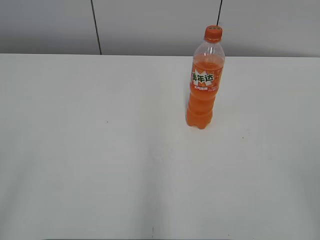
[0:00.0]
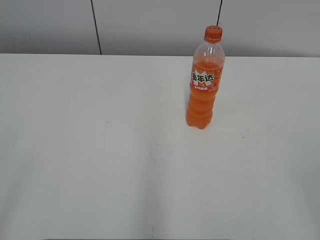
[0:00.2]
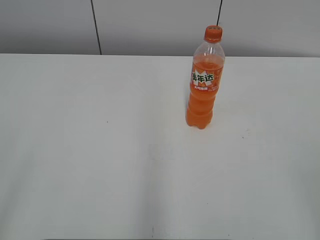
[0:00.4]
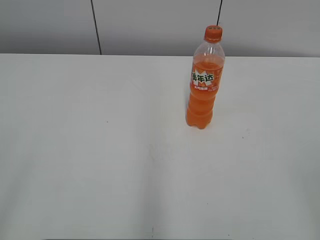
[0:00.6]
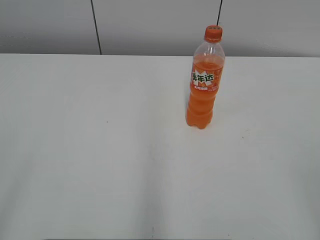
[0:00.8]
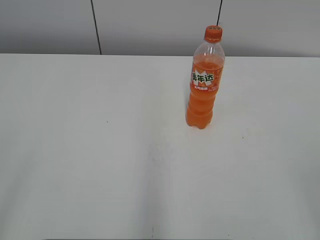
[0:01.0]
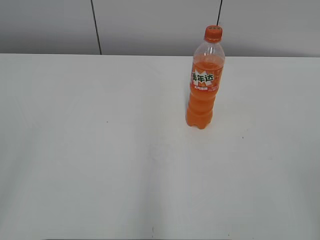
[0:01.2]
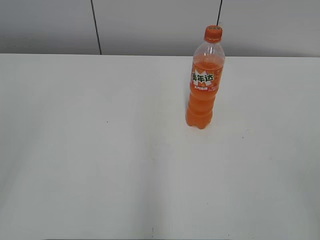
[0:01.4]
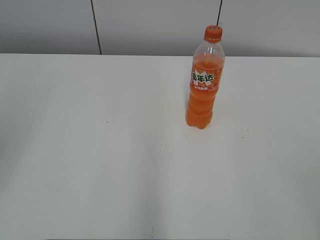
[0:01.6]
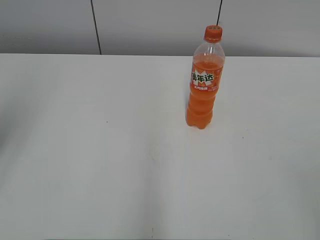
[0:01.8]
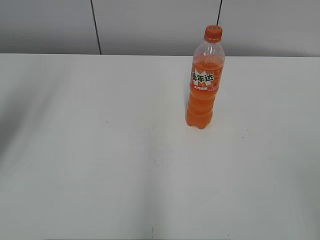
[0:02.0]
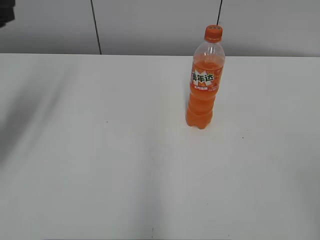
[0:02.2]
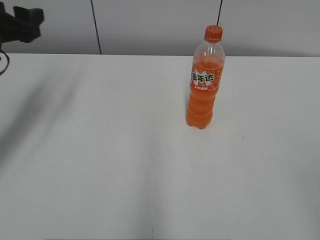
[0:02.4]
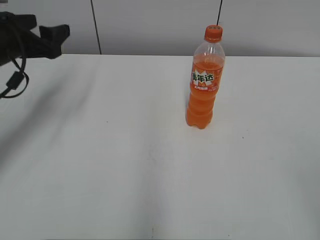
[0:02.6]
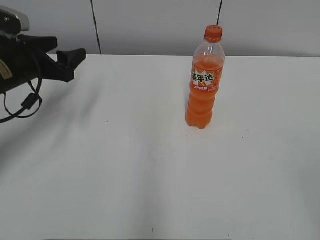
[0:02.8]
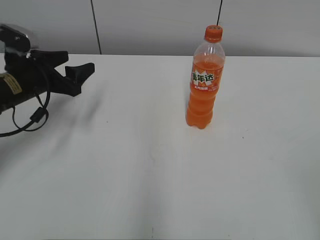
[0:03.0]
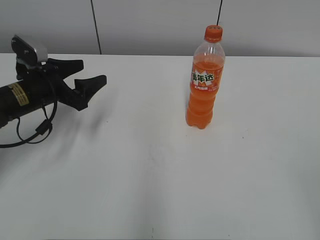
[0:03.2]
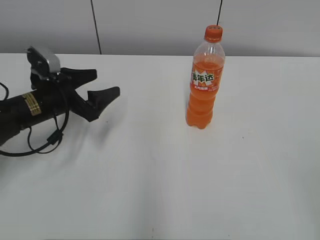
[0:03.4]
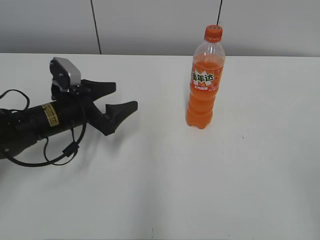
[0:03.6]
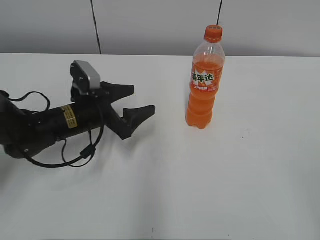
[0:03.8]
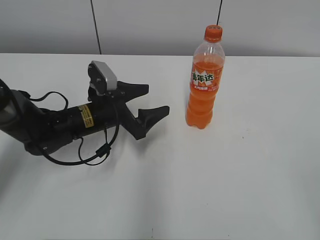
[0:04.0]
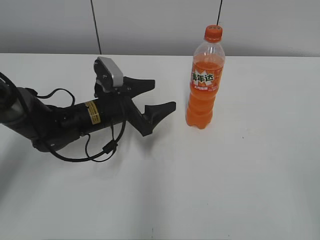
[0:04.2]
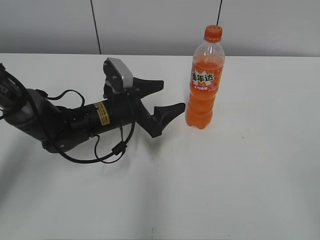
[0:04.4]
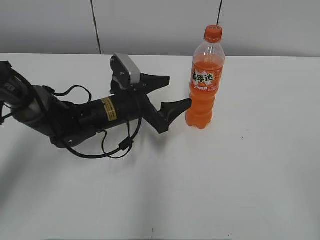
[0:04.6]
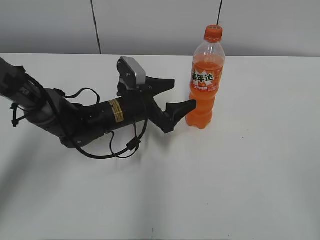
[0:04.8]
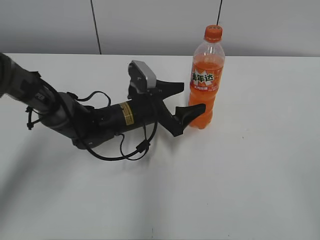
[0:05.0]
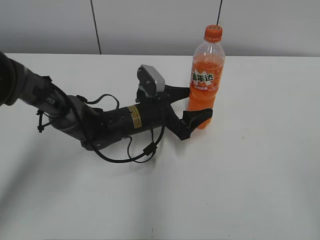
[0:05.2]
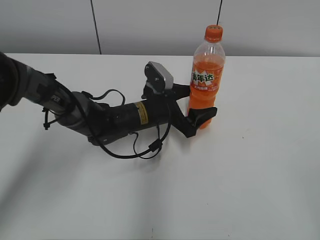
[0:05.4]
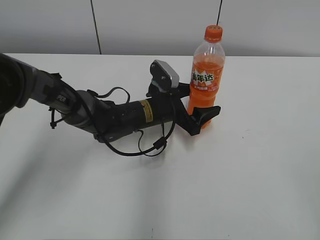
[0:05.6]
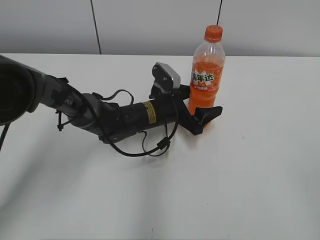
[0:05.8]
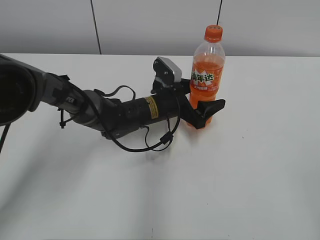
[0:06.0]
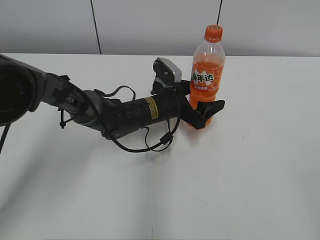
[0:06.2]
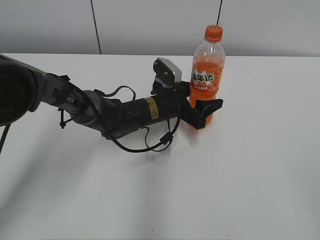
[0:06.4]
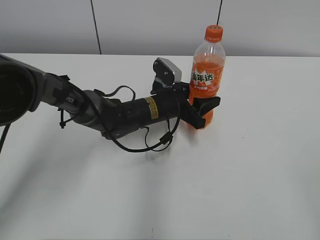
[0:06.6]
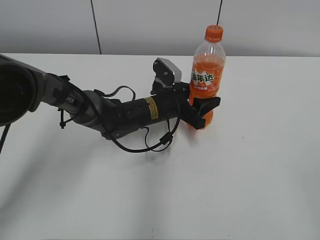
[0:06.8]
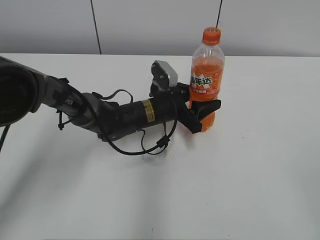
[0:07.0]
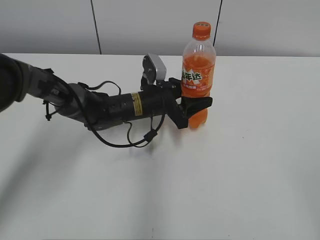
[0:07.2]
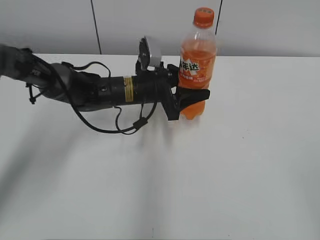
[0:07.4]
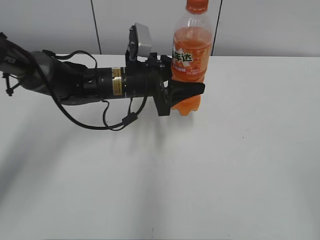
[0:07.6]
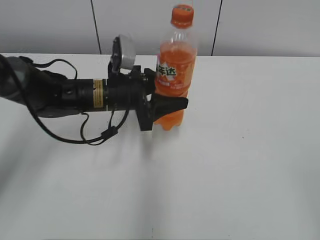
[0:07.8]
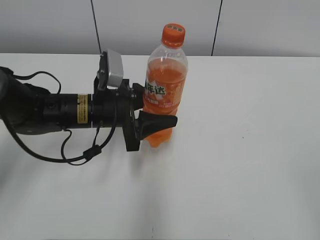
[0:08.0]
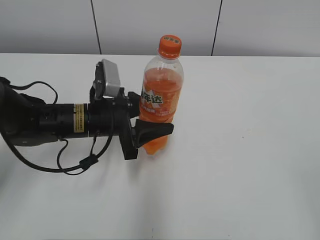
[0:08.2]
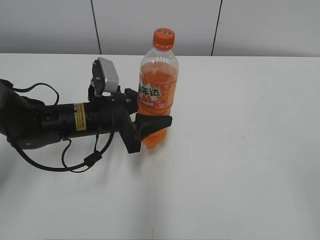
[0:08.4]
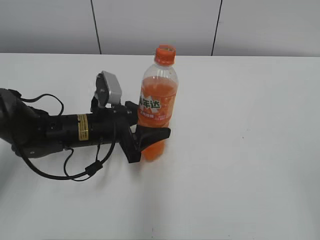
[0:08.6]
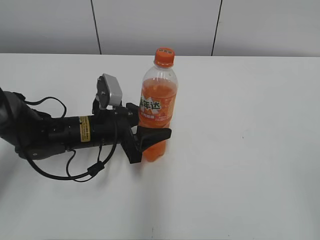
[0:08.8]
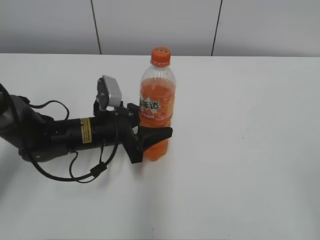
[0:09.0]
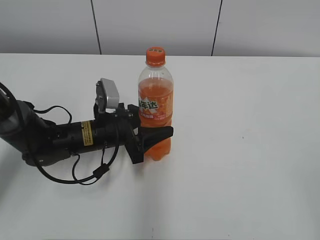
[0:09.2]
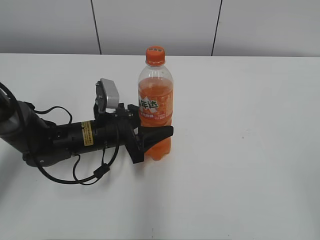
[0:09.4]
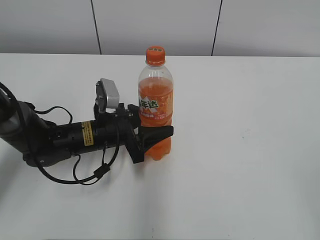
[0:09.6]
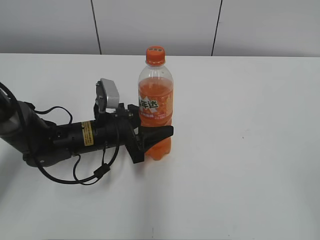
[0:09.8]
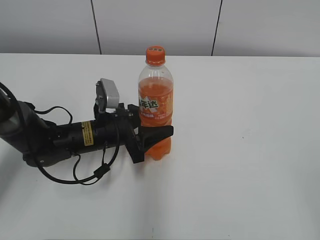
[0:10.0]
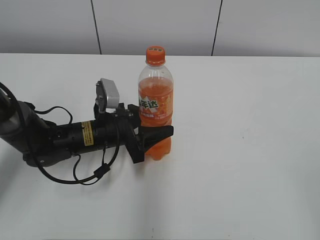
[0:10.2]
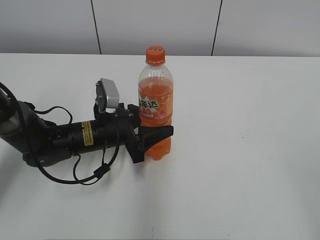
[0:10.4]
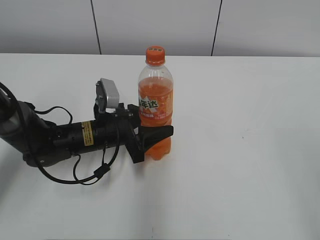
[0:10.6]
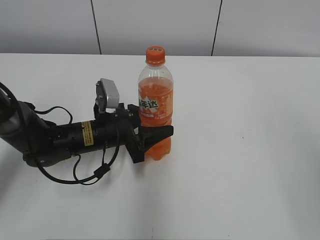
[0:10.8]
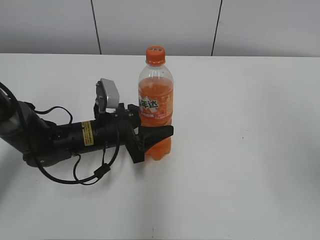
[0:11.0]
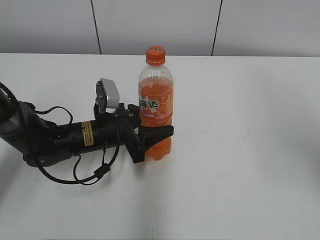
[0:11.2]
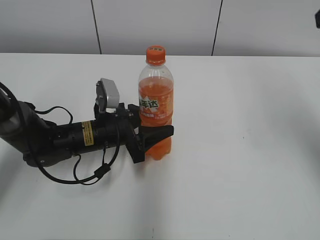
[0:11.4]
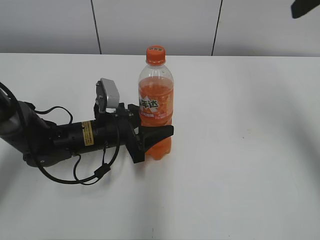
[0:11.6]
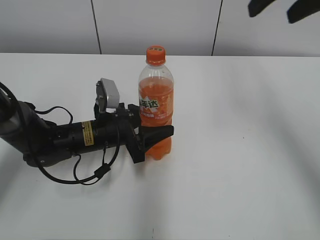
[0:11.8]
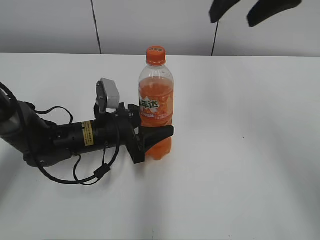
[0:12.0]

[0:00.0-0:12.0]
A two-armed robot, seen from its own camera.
Step, 0:00.0 to 0:06.4: Grab the Mirinda with the left hand.
Step, 0:06.6 to 0:08.8: Move the Mirinda from right to left.
0:01.6 to 0:03.0: The left gripper travels forward and downward by some 35 cm.
0:03.0 to 0:04.4: The left gripper shifts some 15 cm to the right.
0:04.4 to 0:06.0: The left gripper is displaced to the right by about 10 cm.
0:06.0 to 0:07.6: The left gripper moves upward and to the left, some 10 cm, and closes up.
0:07.6 to 0:09.0: The left gripper travels downward, backward and to the left by some 10 cm.
0:09.0 to 0:10.4: The grippers make only small movements.
0:10.4 to 0:12.0: The right gripper heads forward and to the left, covering some 40 cm.

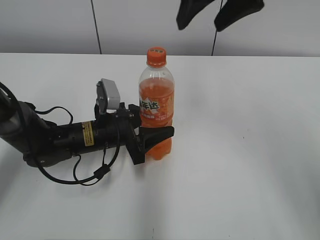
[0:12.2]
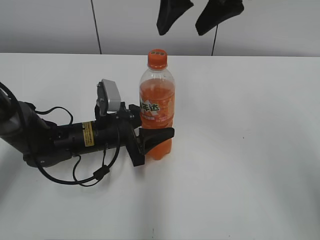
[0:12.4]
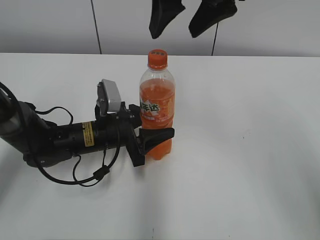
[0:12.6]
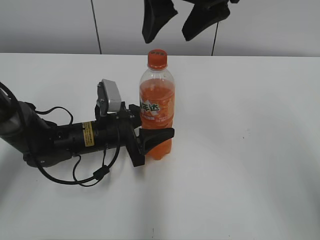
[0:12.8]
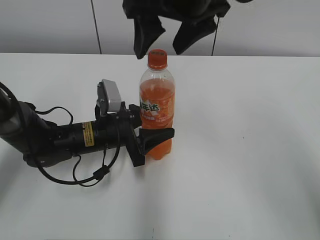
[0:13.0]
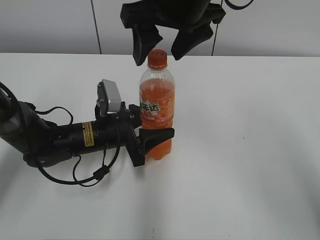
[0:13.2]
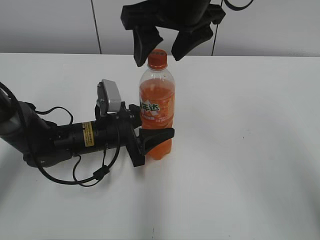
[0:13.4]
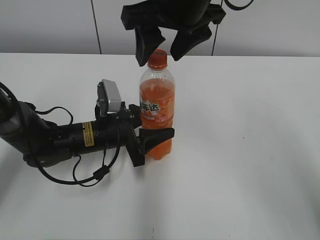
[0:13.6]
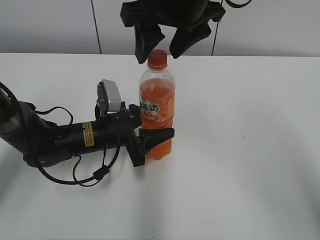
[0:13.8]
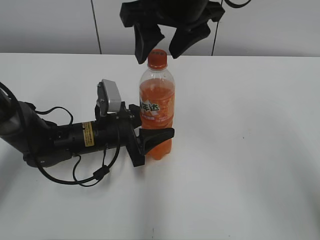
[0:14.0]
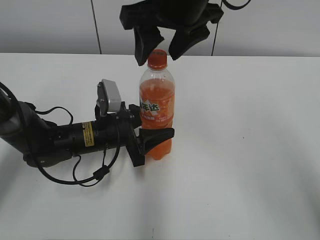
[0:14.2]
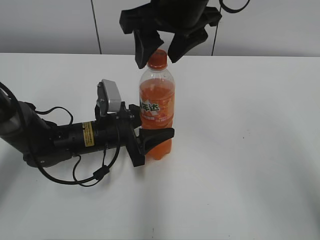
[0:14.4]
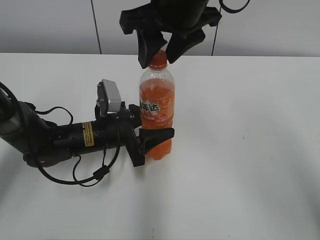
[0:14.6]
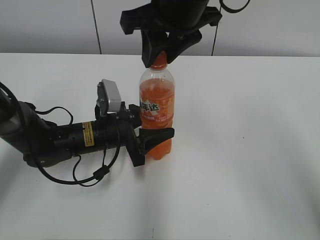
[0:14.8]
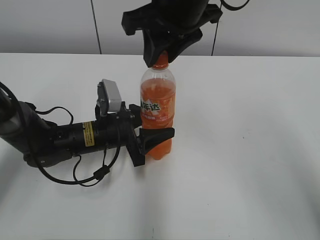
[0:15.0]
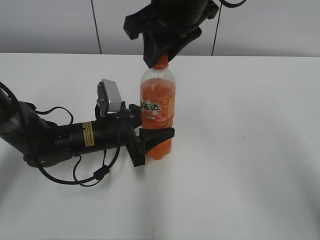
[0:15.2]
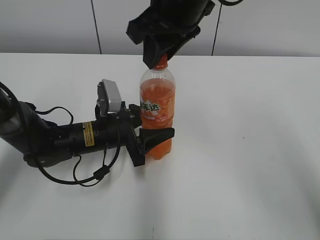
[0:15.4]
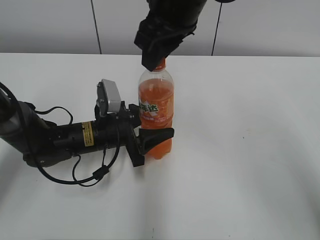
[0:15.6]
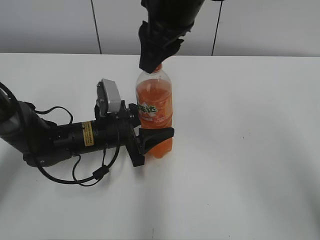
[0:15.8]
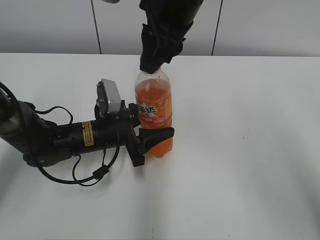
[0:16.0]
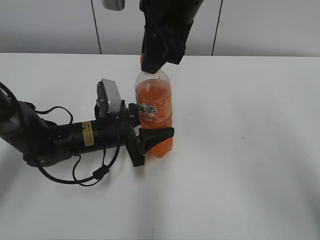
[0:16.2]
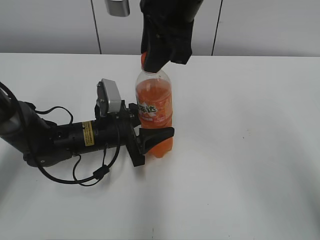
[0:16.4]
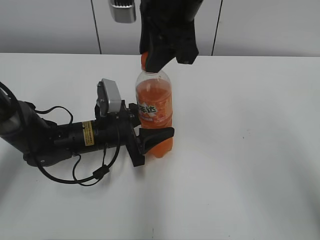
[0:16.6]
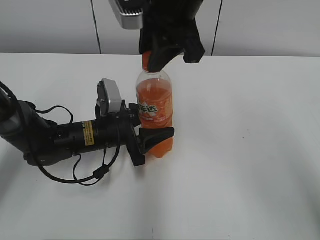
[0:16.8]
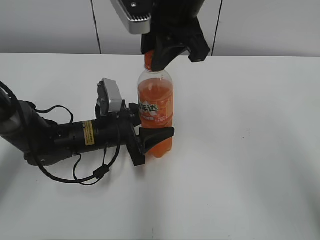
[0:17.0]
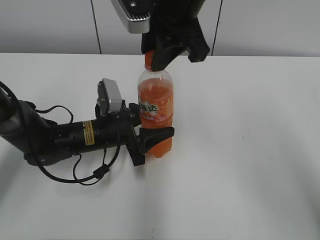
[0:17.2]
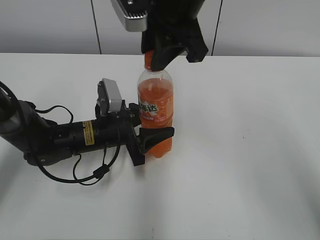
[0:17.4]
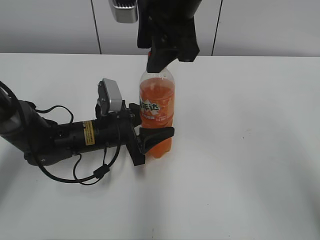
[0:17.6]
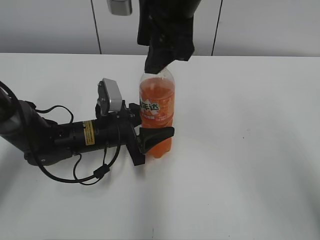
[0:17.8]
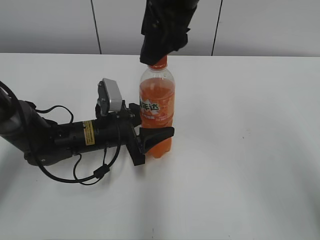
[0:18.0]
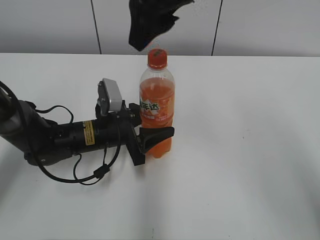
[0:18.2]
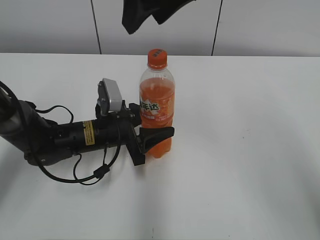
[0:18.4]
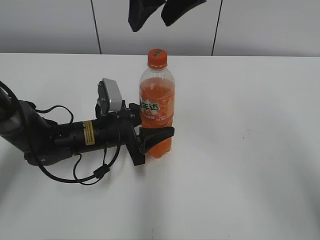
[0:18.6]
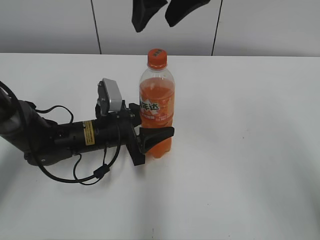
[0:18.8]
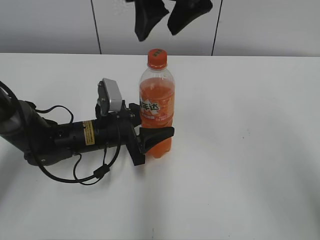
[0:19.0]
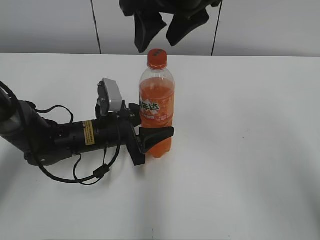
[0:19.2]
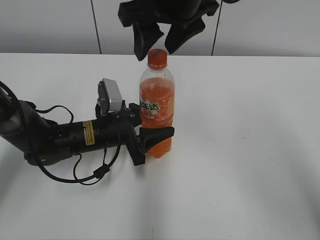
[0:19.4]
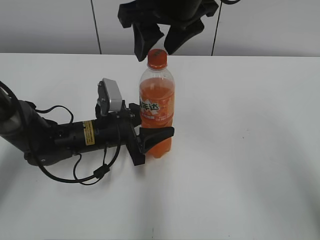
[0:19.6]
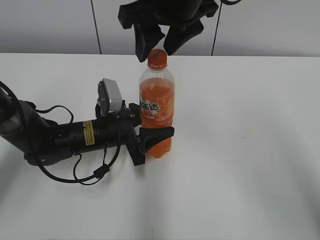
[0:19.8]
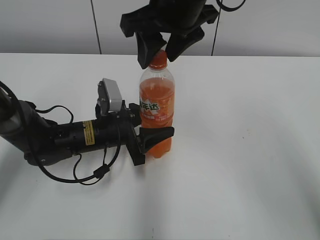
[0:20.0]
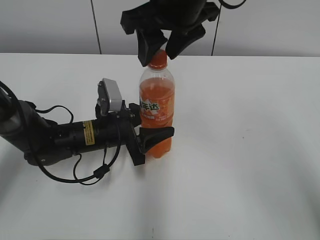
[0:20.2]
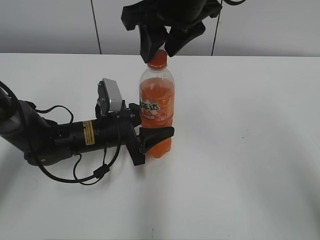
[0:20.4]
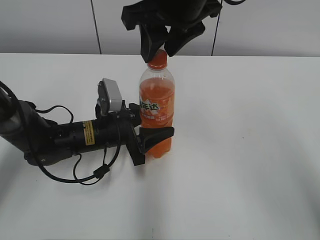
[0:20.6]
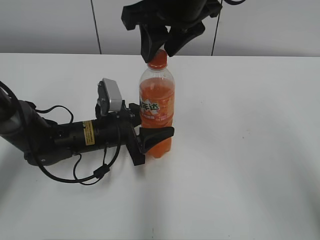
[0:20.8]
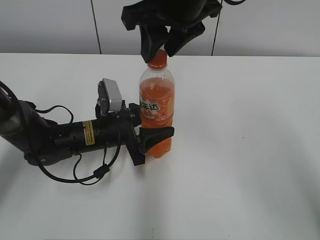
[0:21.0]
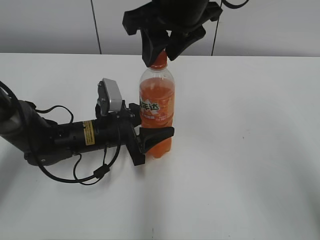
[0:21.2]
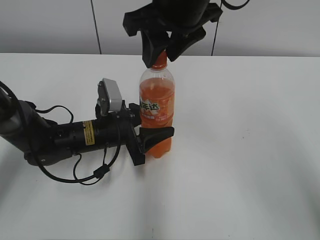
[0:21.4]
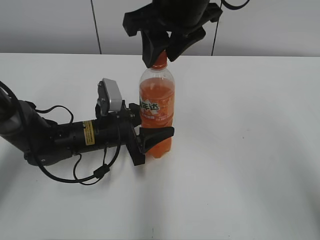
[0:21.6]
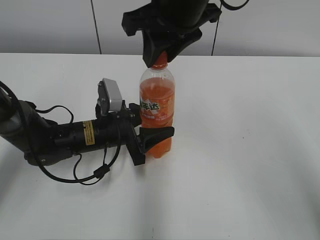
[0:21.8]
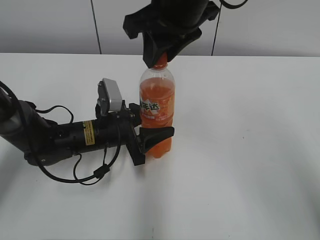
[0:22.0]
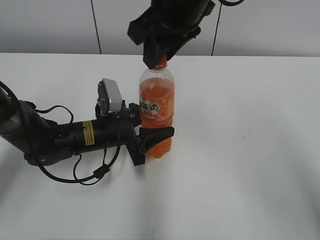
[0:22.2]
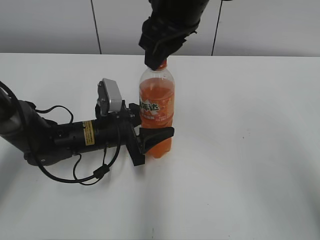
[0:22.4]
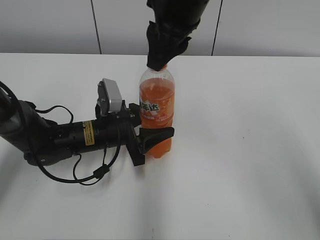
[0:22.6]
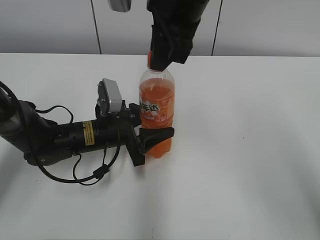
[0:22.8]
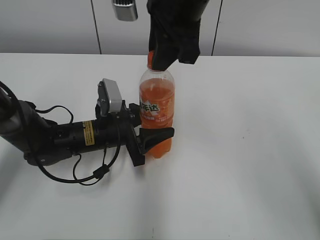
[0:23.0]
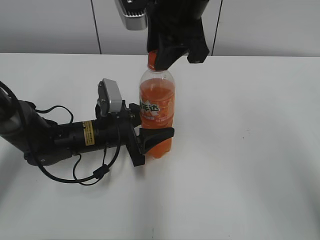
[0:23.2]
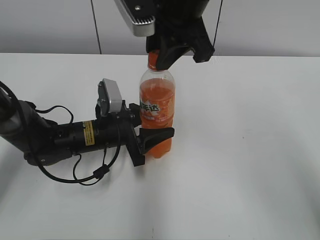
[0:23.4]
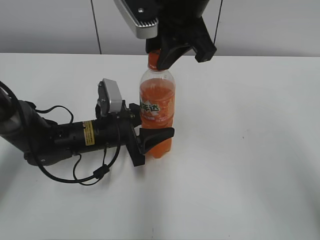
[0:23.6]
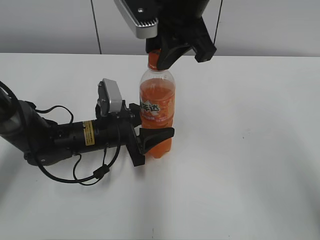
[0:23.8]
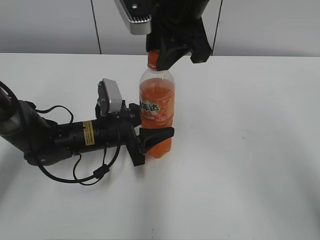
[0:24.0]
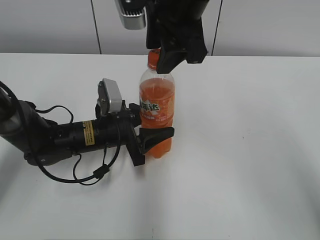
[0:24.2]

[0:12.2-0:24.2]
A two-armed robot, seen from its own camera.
0:12.2 to 0:13.8: The right gripper shifts about 5 cm to the left.
0:13.8 to 0:15.2: The right gripper closes its fingers.
0:16.6 to 0:18.2: The right gripper opens.
0:19.8 to 0:21.2: The two grippers keep their place.
0:22.6 to 0:24.2: The right gripper opens its fingers.
